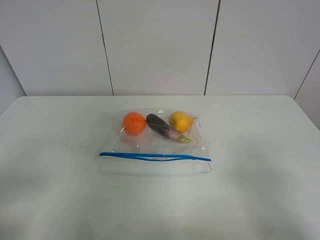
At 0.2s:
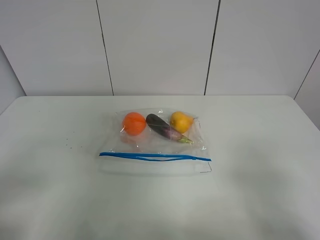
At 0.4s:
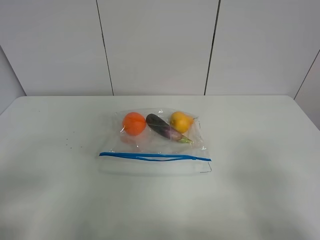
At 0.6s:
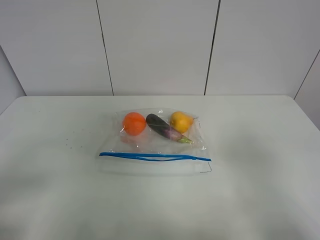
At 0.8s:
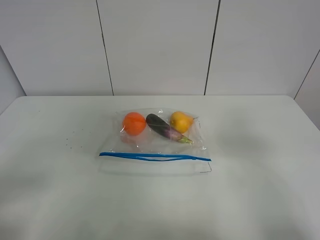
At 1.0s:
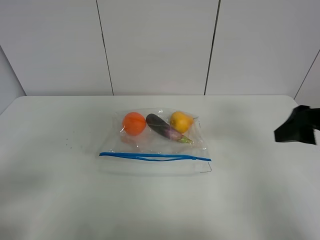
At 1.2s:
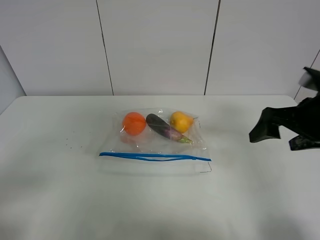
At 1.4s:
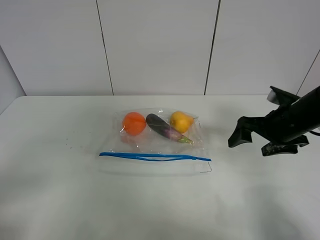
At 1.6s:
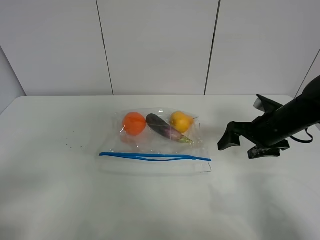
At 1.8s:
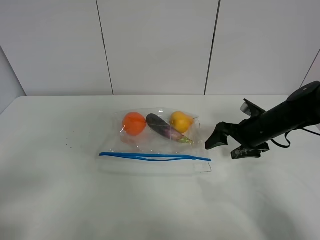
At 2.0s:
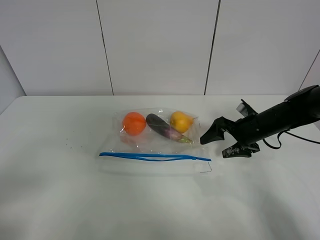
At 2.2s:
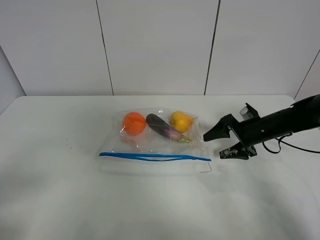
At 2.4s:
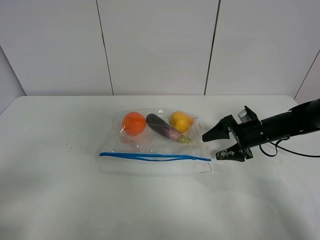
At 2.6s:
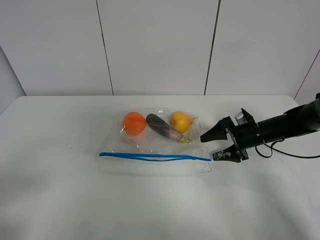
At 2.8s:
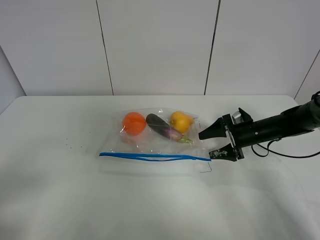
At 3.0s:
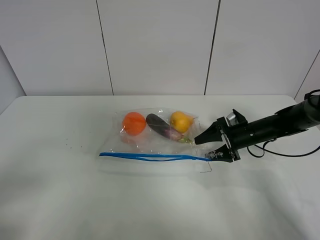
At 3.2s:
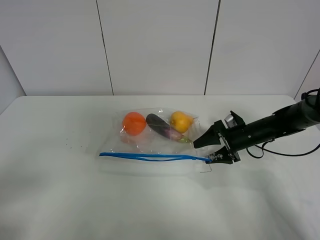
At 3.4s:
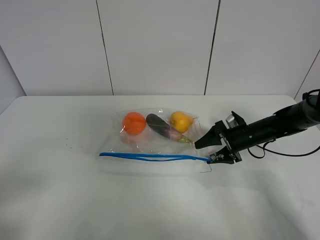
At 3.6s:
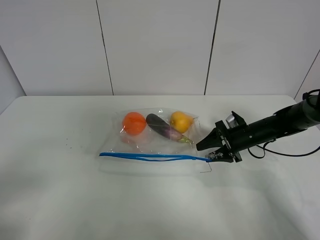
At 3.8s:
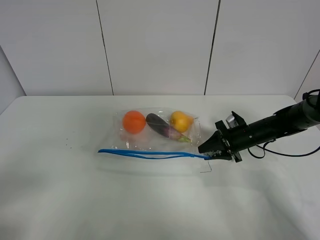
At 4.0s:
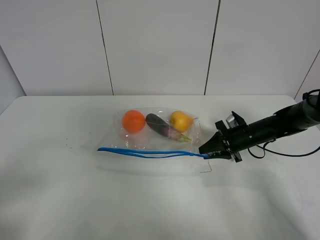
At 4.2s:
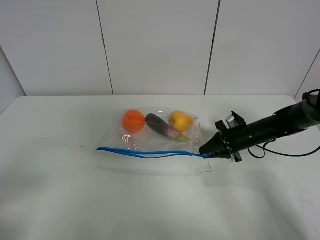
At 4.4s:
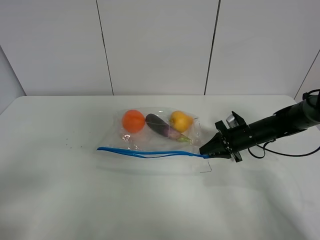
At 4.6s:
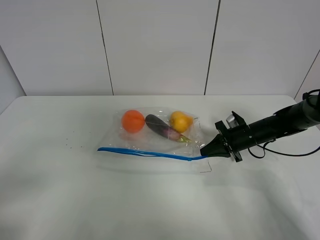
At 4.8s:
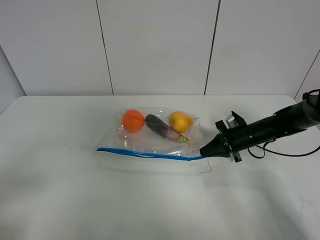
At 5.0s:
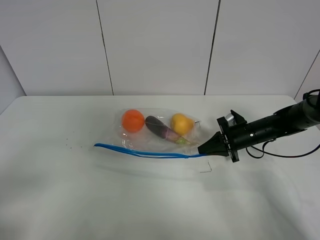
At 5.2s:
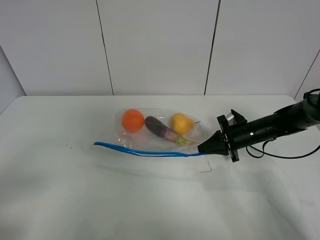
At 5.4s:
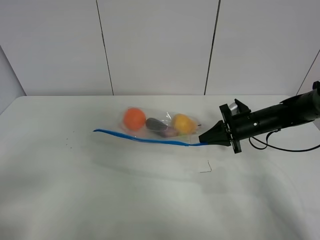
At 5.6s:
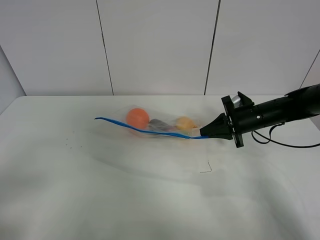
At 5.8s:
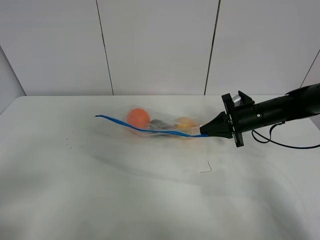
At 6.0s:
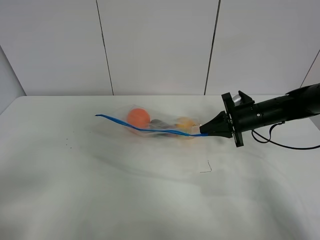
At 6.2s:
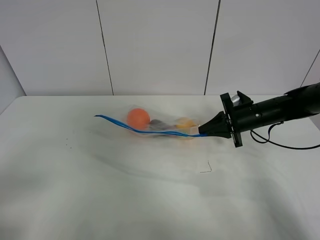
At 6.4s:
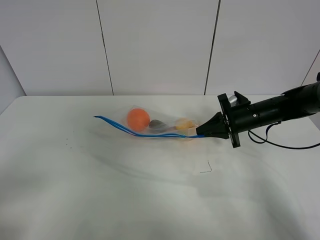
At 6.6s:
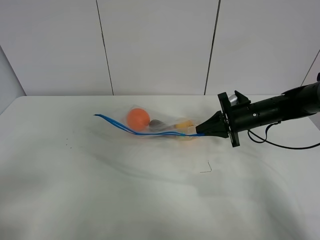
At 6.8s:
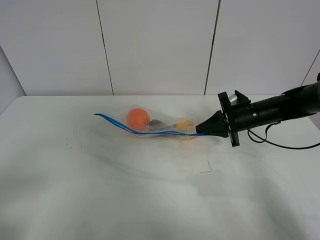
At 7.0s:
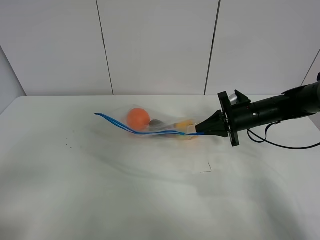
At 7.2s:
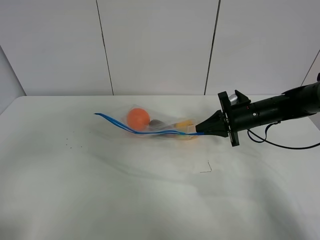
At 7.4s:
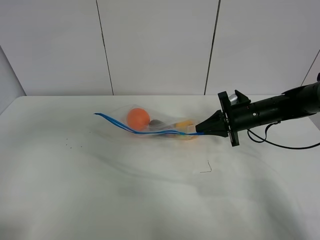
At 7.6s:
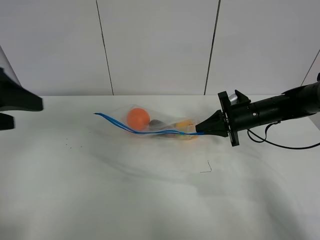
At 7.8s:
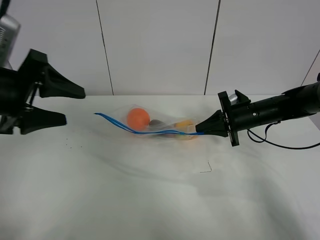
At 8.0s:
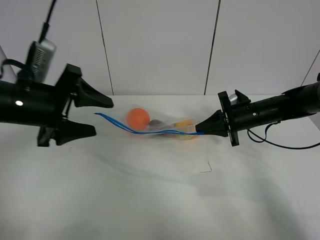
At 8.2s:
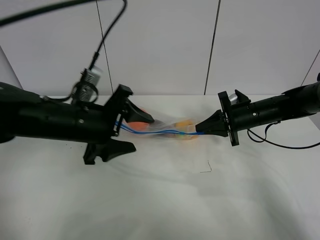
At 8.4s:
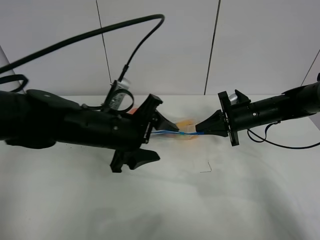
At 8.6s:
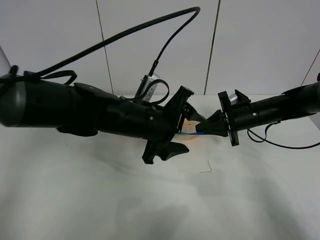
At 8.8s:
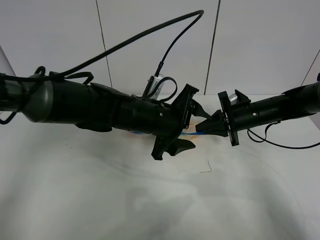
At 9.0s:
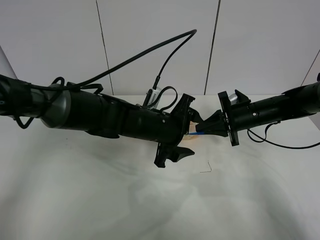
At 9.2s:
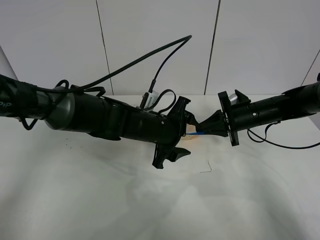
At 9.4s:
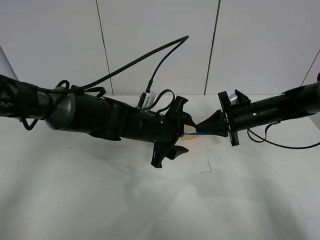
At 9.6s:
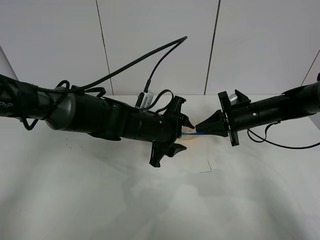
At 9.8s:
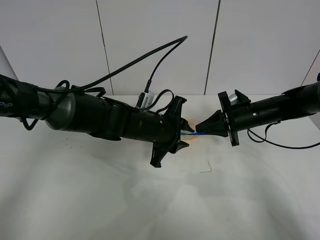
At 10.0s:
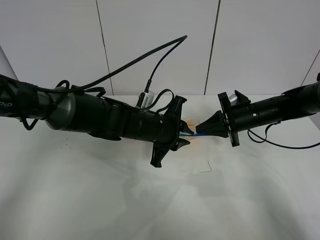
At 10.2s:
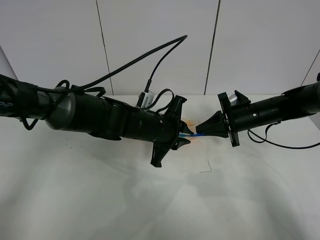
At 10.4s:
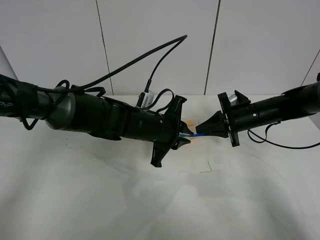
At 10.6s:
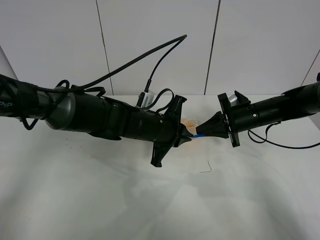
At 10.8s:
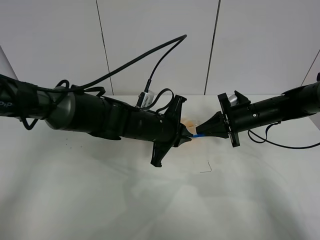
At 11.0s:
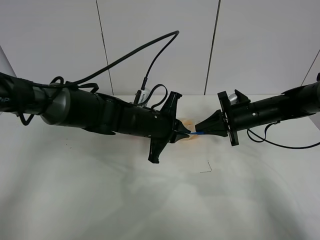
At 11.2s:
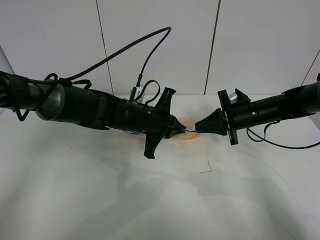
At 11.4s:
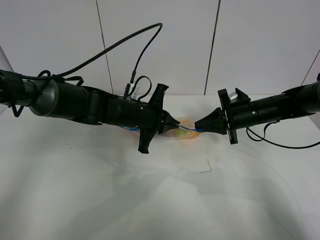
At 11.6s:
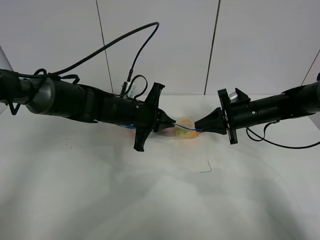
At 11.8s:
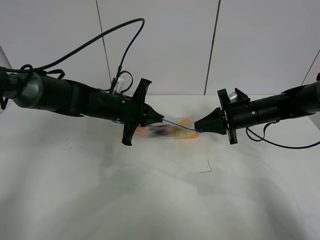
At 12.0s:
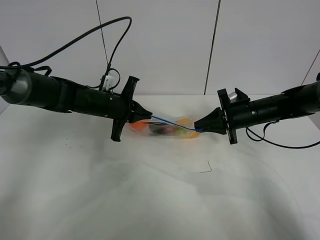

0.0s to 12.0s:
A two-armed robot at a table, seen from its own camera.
Step, 0.0s to 4.8s: Grasp the fruit bag with right gripper.
Step, 5.0s to 6.0s: Lift the fruit bag with your right gripper.
0.0s to 1.6s: The right gripper is displaced forward by roughly 30 cm.
1.6s to 3.0s: The right gripper goes about 10 cm downward and forward.
3.0s to 4.4s: The right gripper closes its fingers.
4.4s to 6.0s: The right gripper travels upward by some 5 cm.
6.0s to 7.6s: The left gripper travels forward by some 15 cm.
7.6s to 9.0s: The left gripper moves to the right, downward and forward, roughly 30 cm.
9.0s to 10.4s: The left gripper closes its fingers.
10.4s to 12.0s: The left gripper moves to the left and forward, about 15 cm.

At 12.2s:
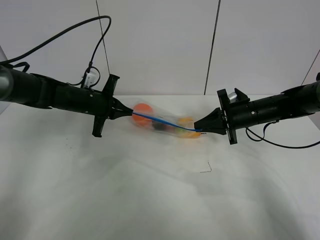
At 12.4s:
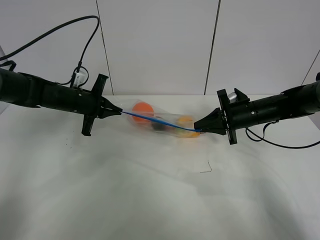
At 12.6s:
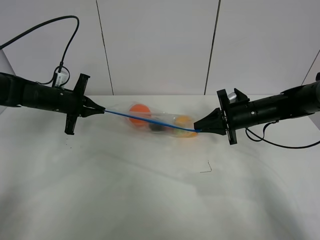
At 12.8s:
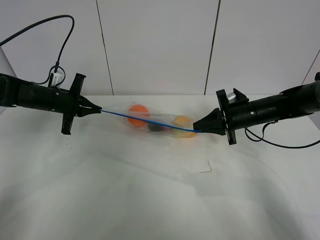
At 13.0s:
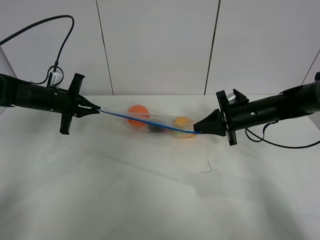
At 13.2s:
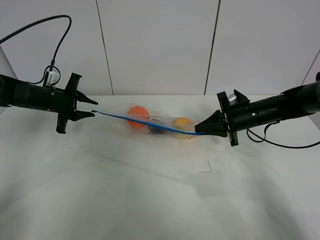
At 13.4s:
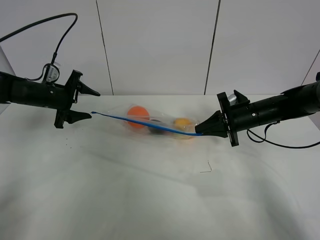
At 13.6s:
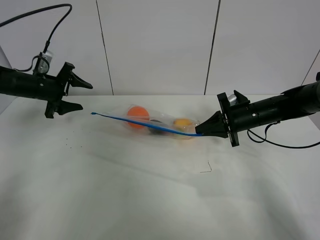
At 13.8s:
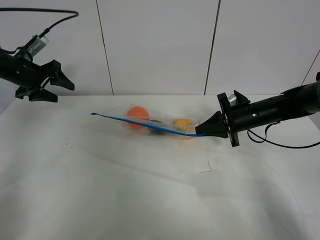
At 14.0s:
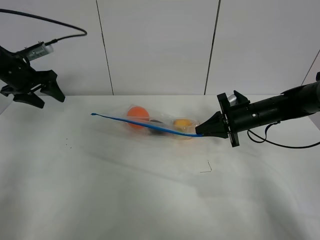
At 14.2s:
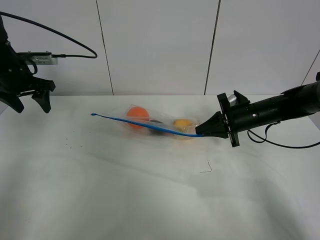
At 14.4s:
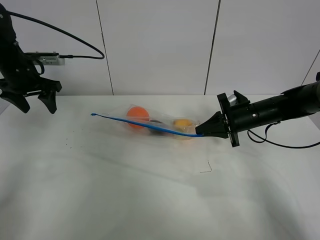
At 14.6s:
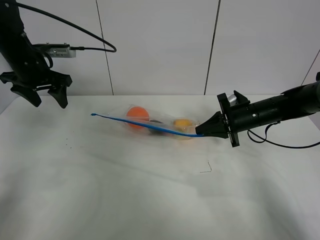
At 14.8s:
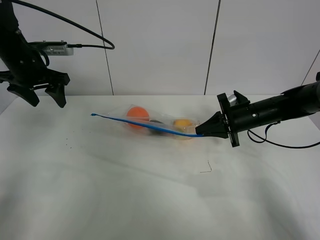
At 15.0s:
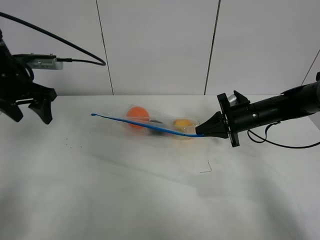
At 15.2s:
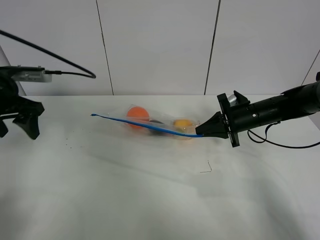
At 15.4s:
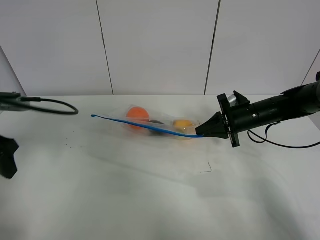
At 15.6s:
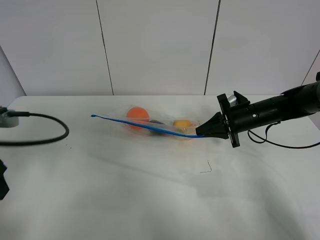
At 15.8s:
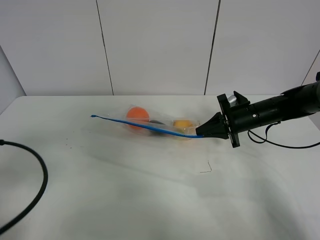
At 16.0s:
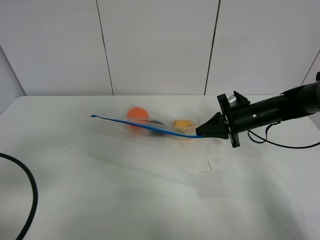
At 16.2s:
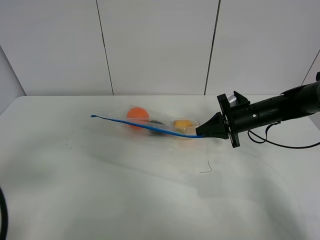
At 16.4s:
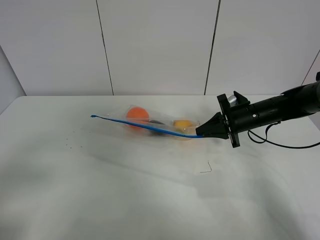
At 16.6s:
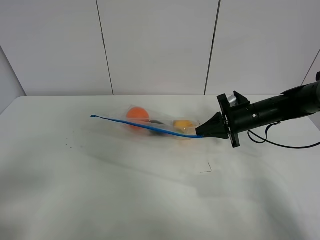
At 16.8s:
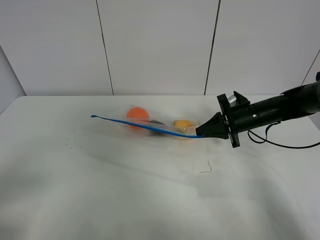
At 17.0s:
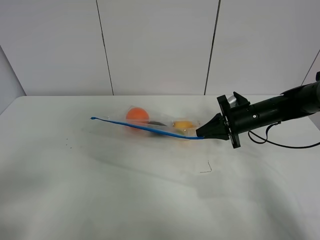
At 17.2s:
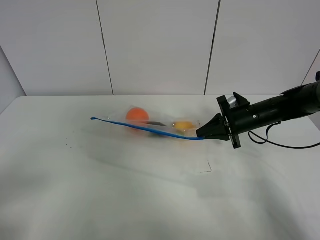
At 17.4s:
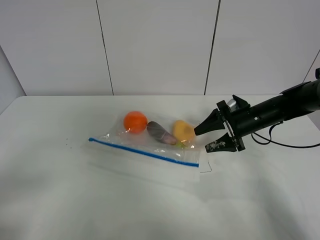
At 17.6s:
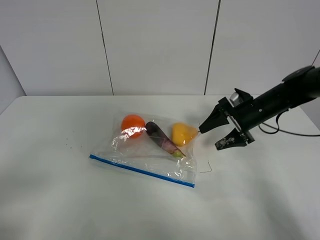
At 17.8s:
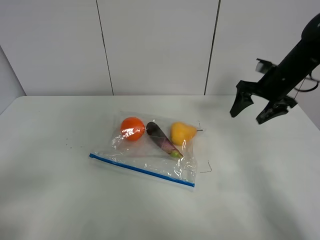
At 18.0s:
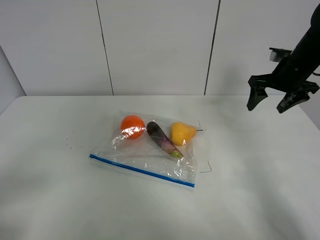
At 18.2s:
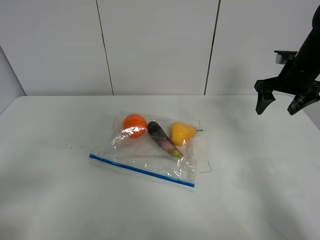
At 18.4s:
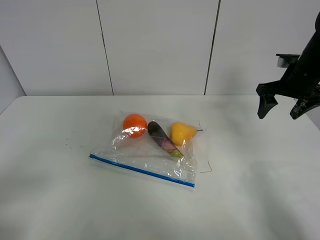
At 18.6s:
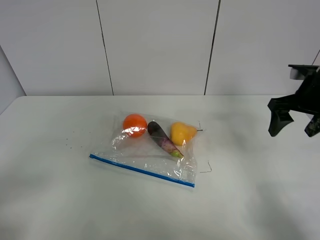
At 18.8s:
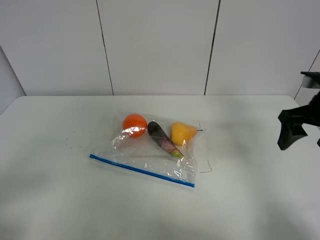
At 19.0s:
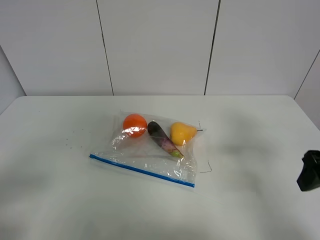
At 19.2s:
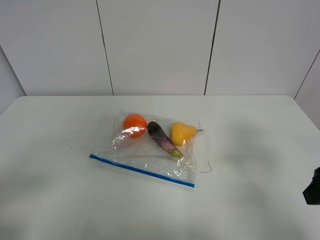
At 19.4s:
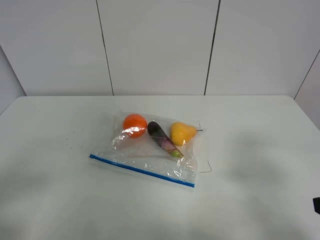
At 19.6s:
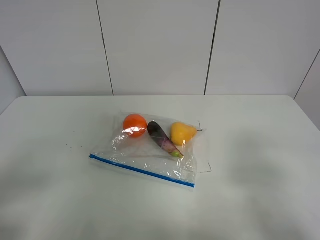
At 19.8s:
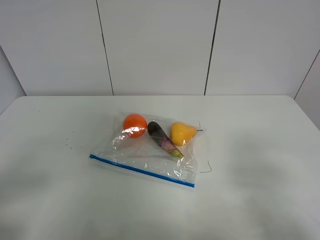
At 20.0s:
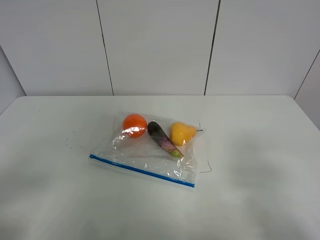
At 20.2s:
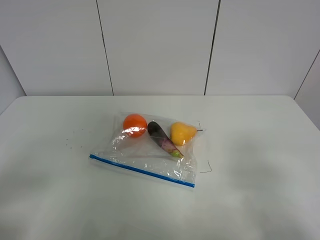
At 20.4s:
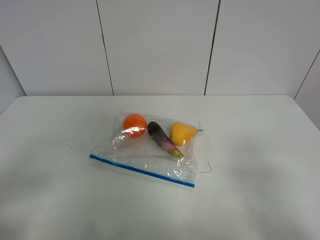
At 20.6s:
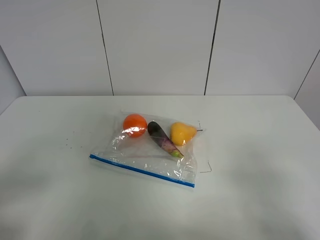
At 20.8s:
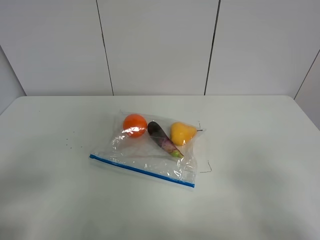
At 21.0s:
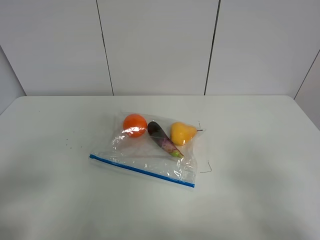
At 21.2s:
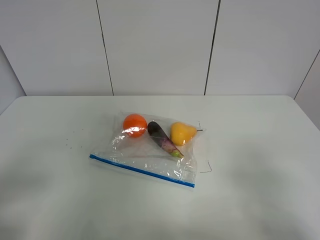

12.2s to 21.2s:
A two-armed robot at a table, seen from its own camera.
12.2s to 13.8s: The left gripper travels to the left and upward by some 15 cm, and opens up.
13.8s to 15.2s: The left gripper goes approximately 15 cm backward.
15.2s to 16.6s: The left gripper shifts about 30 cm backward.
16.6s to 18.2s: The right gripper heads upward and to the right, covering roughly 15 cm, and opens its fingers.
18.2s to 19.8s: The right gripper goes some 35 cm backward.

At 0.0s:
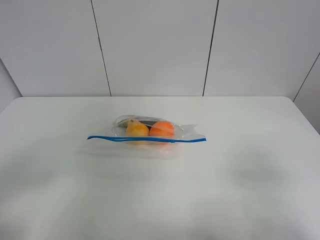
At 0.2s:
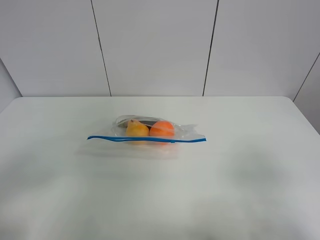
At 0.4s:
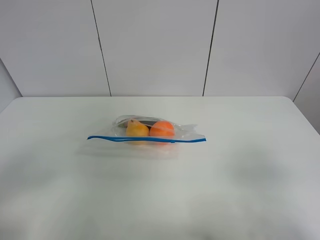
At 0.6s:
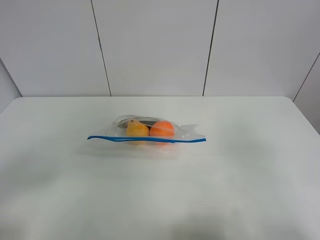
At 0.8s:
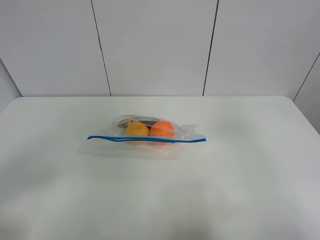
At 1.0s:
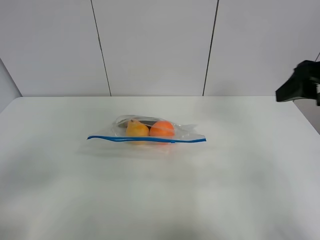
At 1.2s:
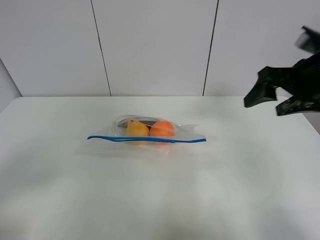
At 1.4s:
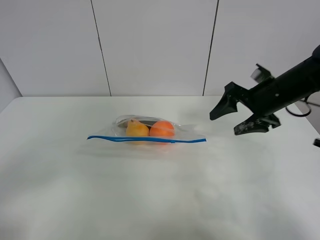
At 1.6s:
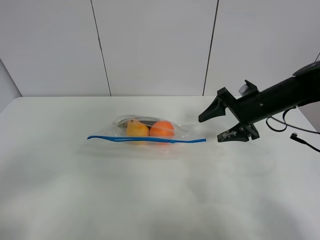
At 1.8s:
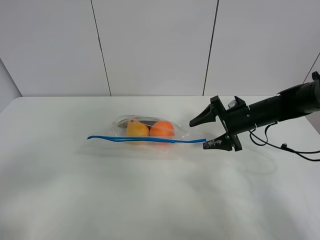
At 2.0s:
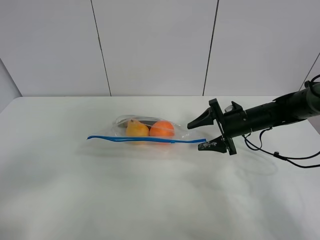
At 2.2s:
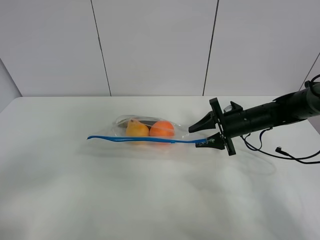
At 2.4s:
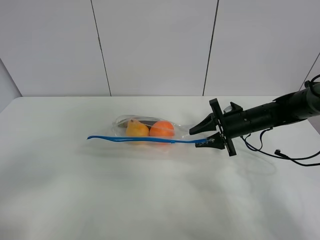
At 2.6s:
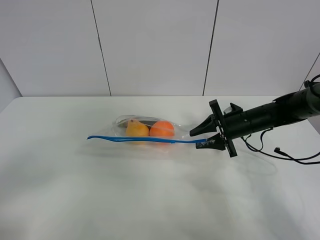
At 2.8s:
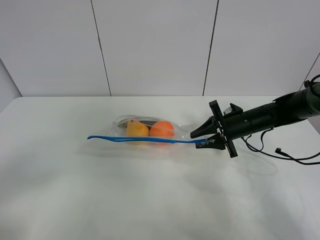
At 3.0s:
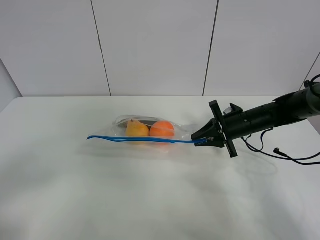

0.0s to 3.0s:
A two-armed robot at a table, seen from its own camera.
0.0s to 1.6s: The right gripper moves forward, roughly 35 cm.
1.6s to 3.0s: The right gripper heads downward, covering approximately 5 cm, and closes up.
